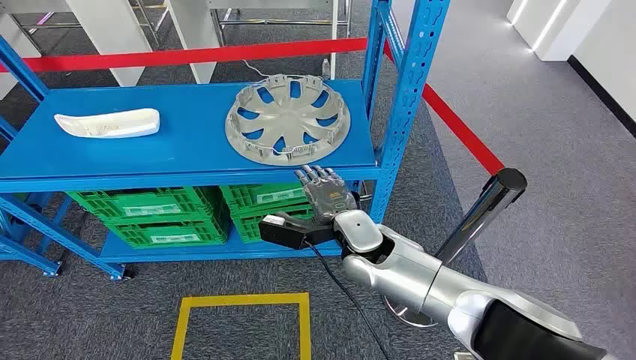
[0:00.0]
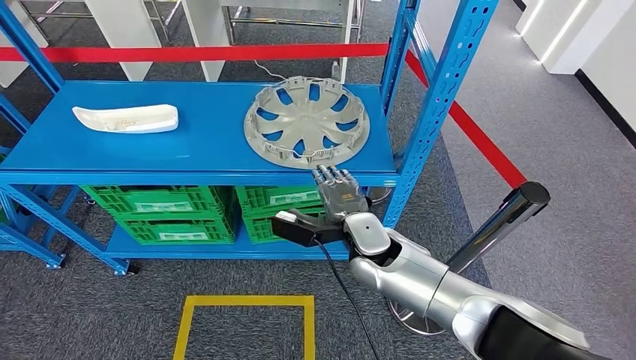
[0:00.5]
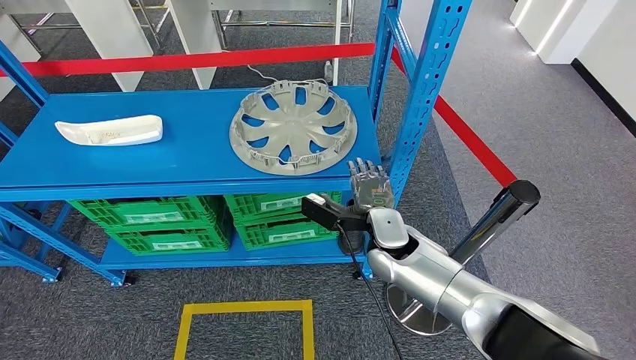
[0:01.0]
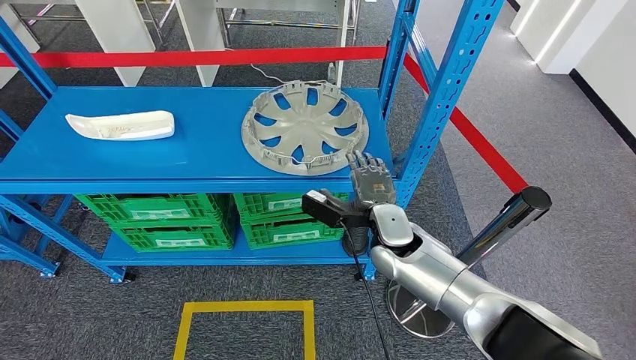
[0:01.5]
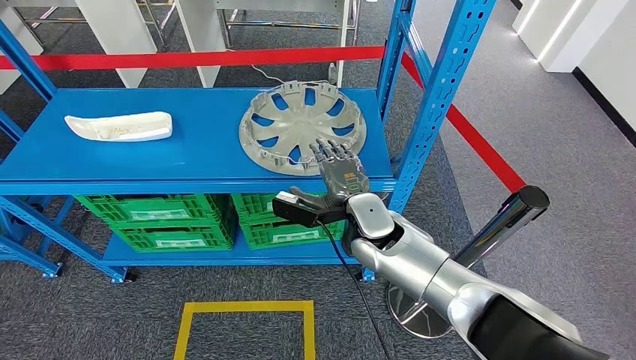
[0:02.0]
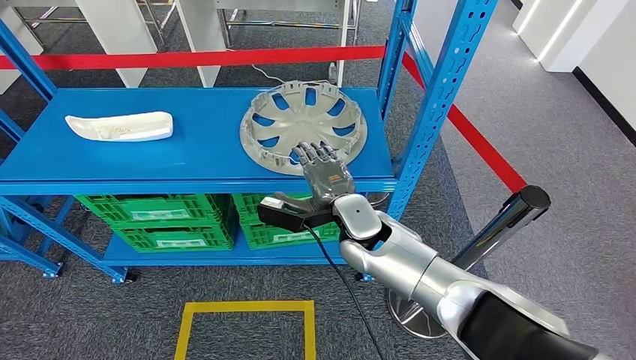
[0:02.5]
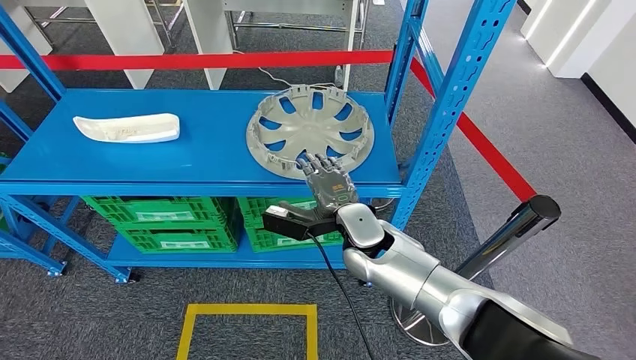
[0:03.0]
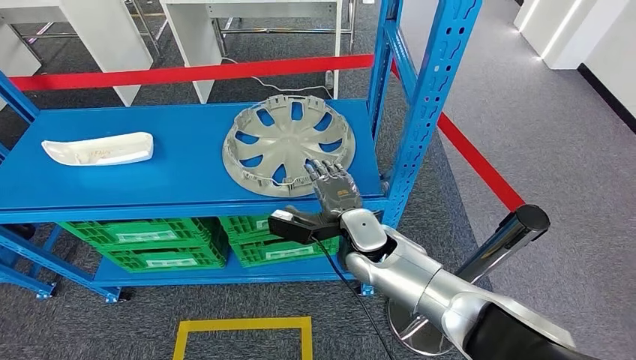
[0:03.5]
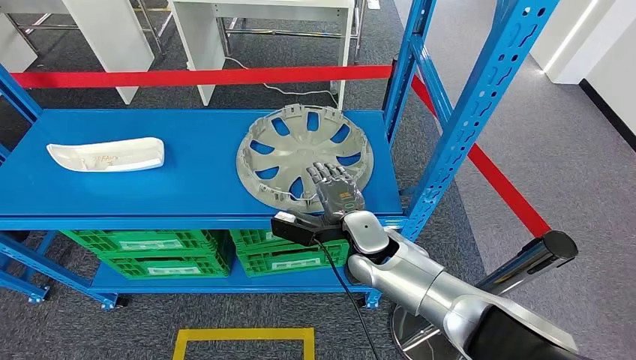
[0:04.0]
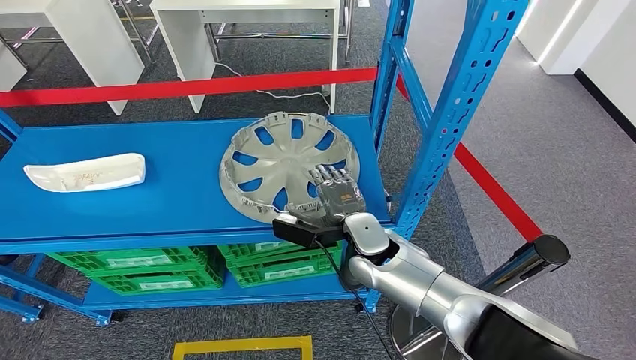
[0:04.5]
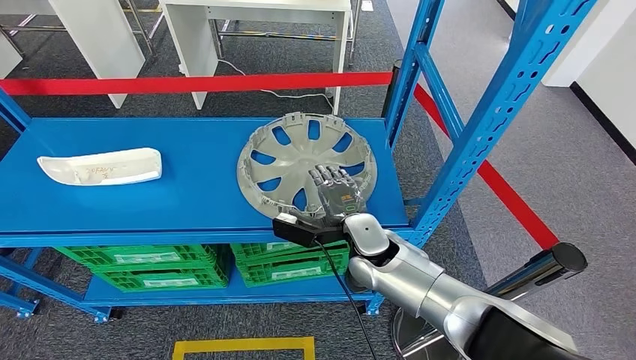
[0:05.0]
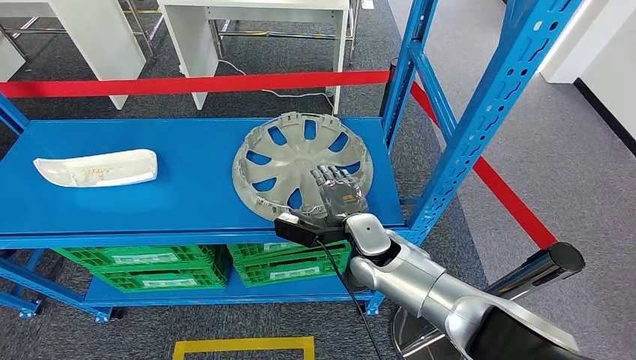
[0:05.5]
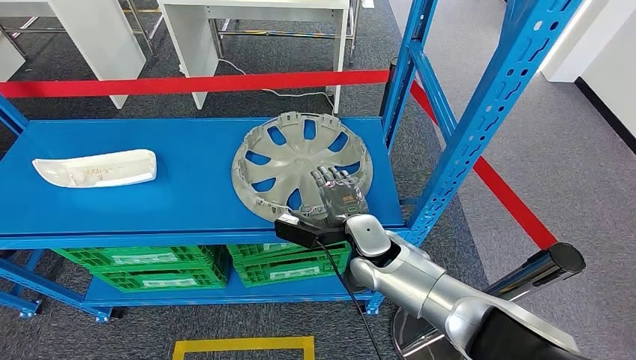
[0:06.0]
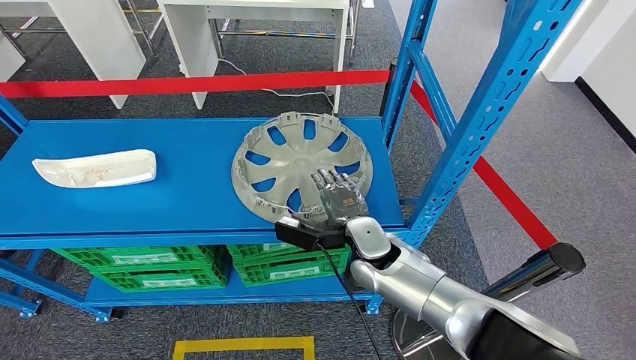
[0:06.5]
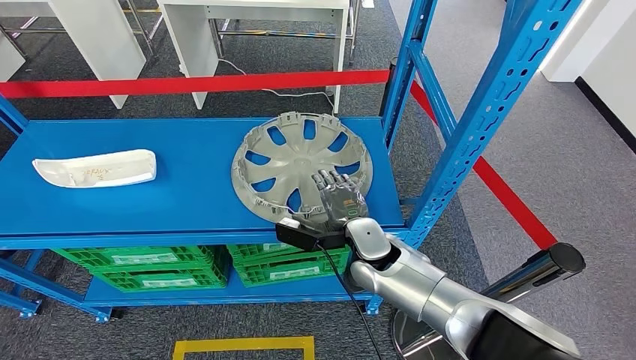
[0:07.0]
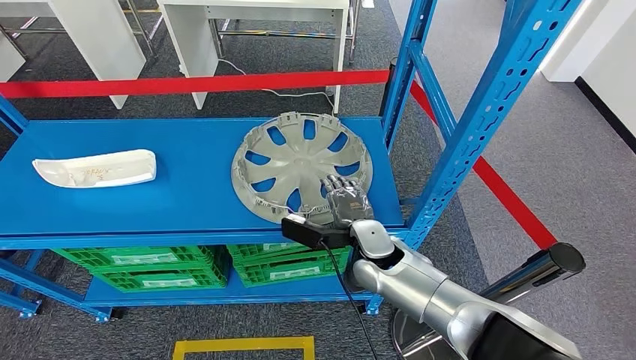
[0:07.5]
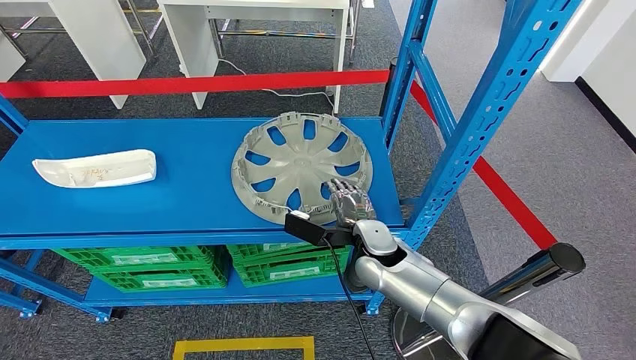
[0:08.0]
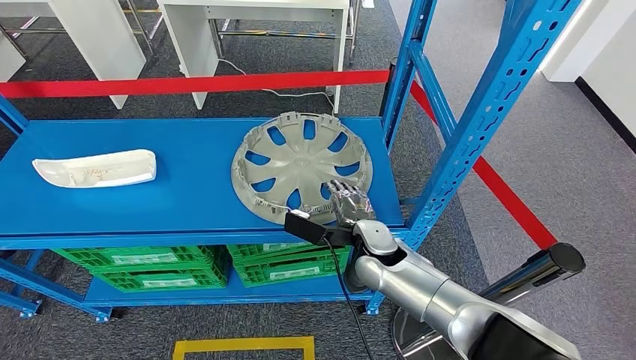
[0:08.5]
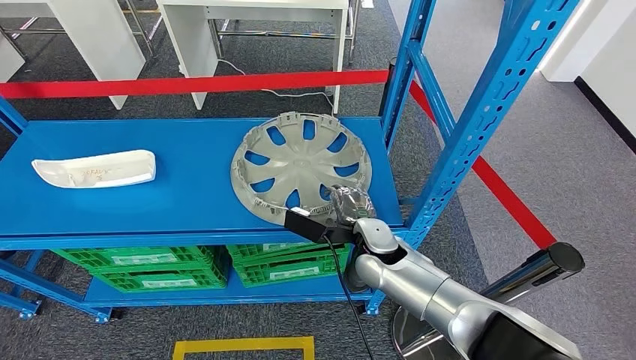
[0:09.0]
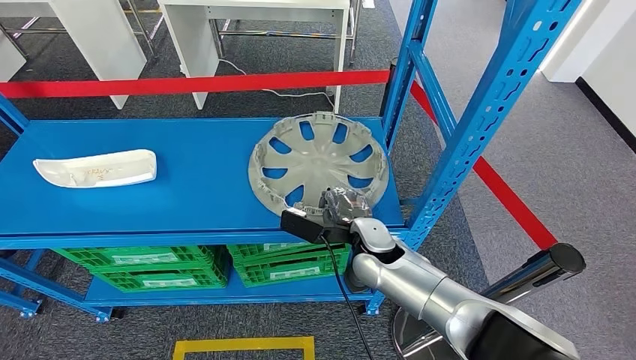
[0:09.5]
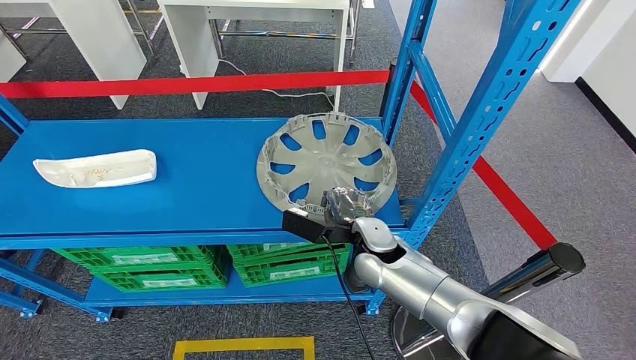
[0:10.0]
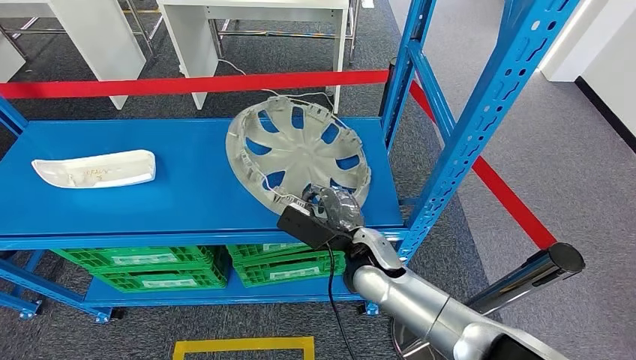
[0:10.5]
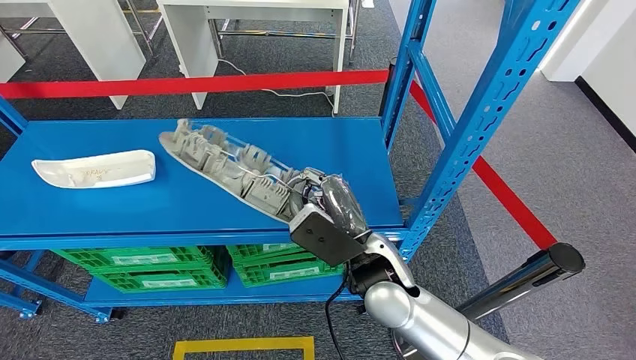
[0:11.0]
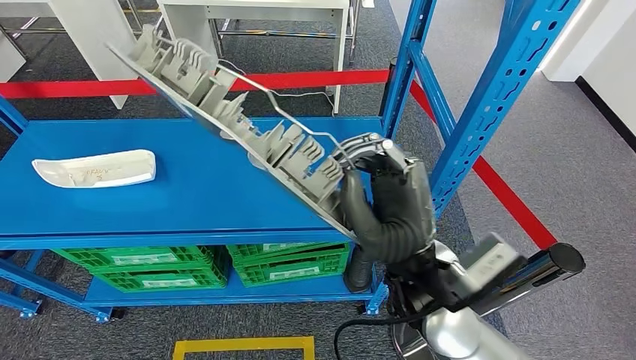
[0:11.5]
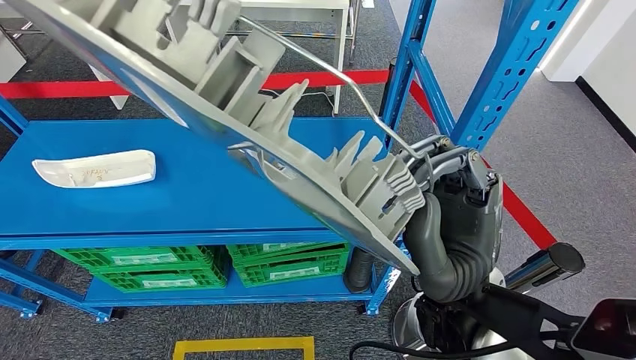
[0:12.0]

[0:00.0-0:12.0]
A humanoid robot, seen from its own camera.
Step, 0:00.0 to 0:11.5: Pick up the large material from the shelf.
0:06.0 to 0:08.0: The hands stay close to where they were, moving slightly.
0:08.0 to 0:10.0: Neither hand changes place.

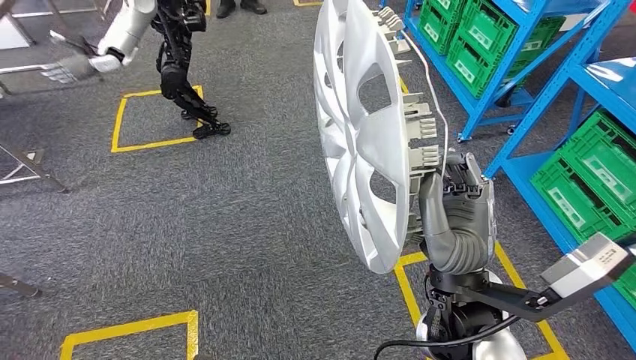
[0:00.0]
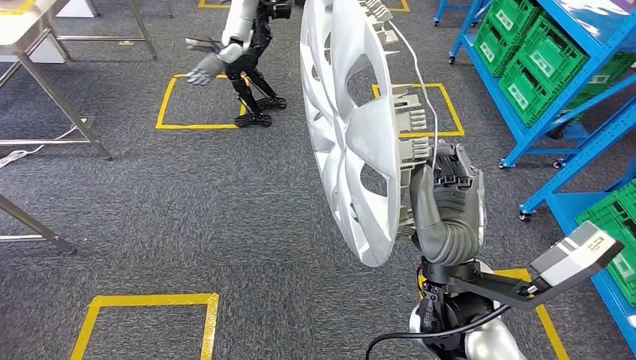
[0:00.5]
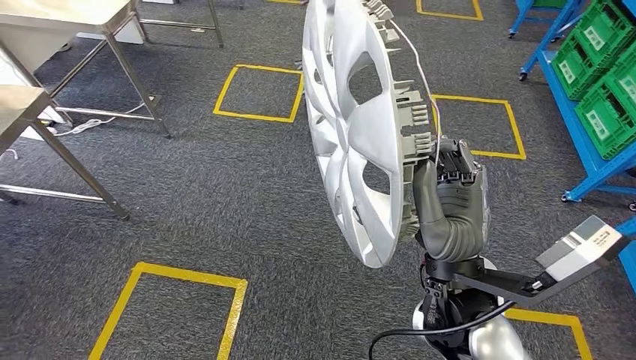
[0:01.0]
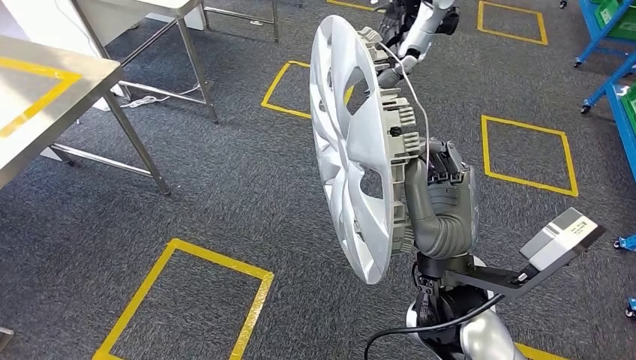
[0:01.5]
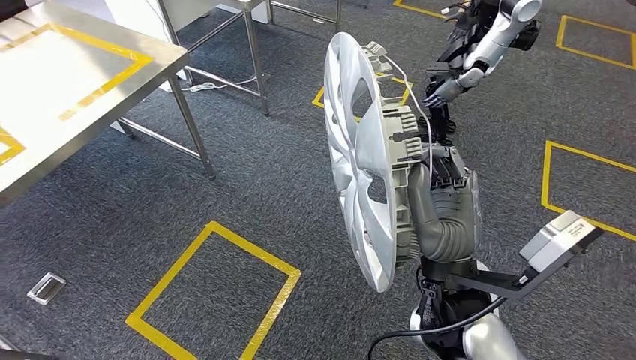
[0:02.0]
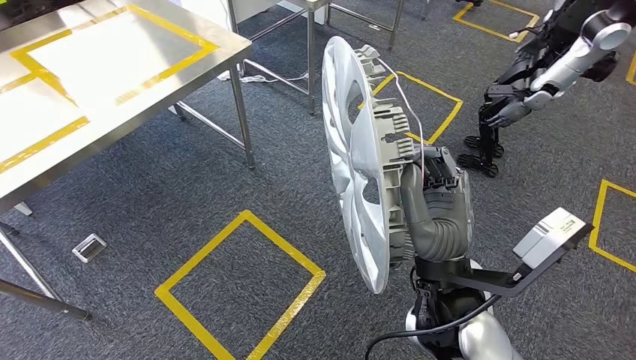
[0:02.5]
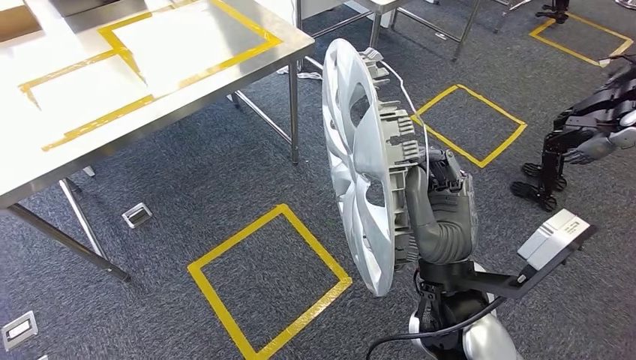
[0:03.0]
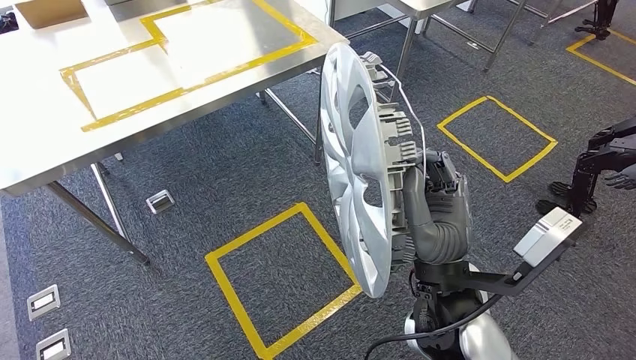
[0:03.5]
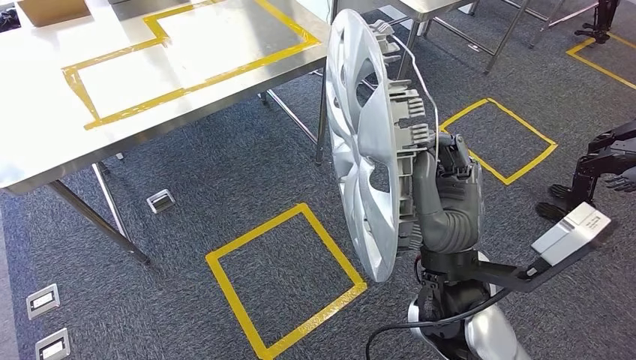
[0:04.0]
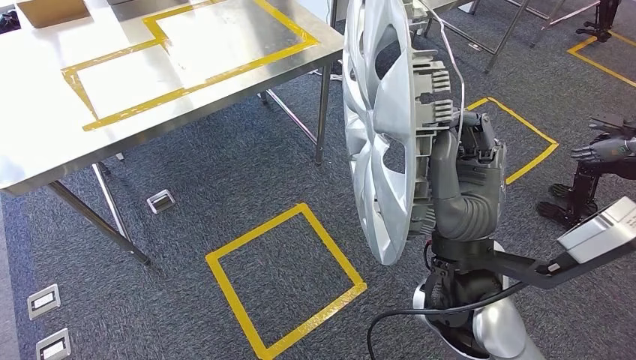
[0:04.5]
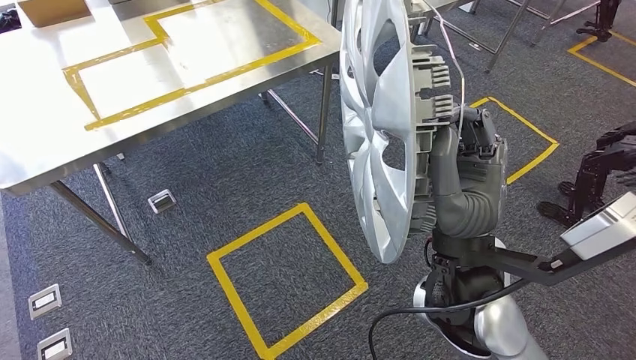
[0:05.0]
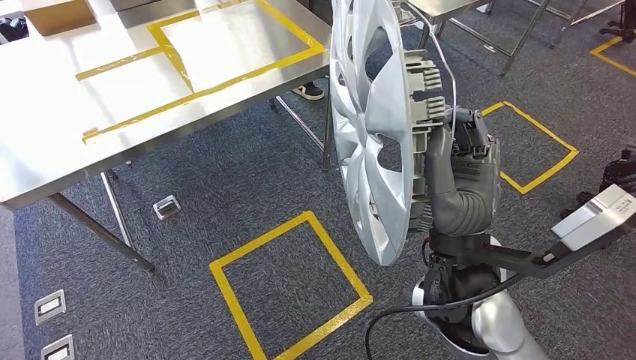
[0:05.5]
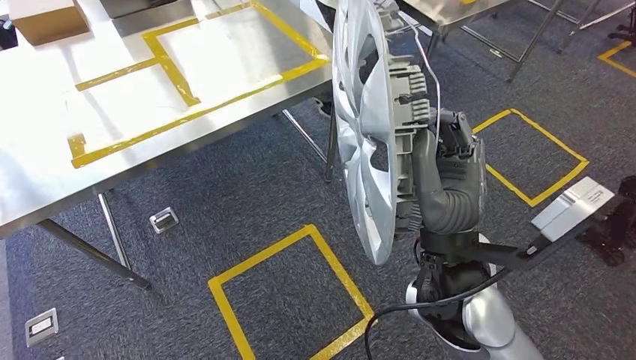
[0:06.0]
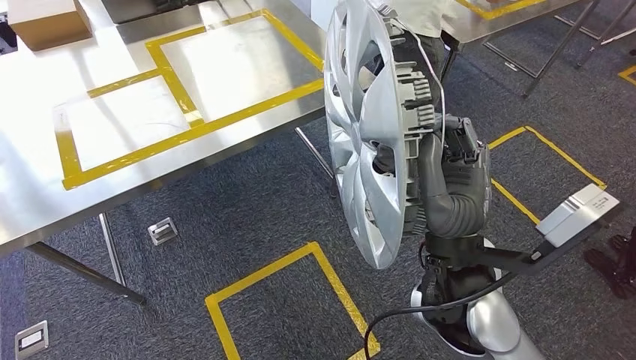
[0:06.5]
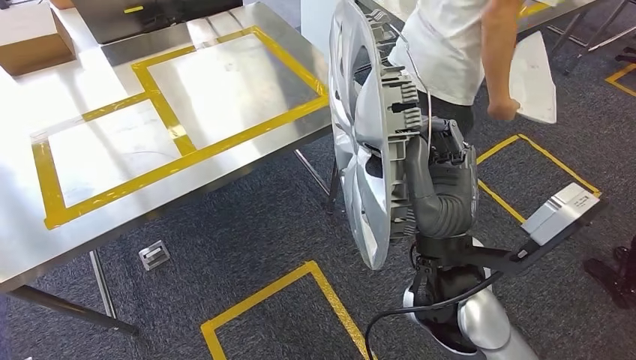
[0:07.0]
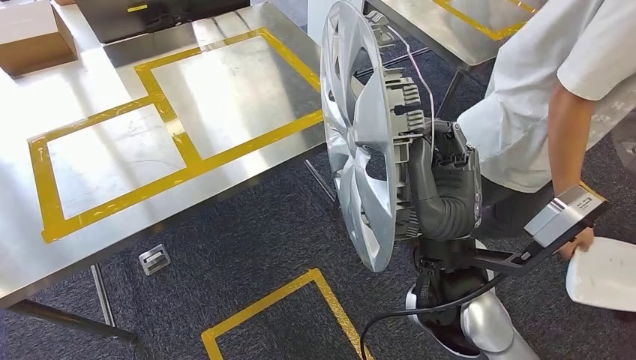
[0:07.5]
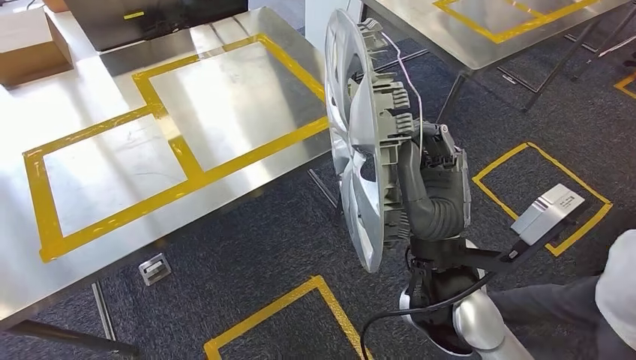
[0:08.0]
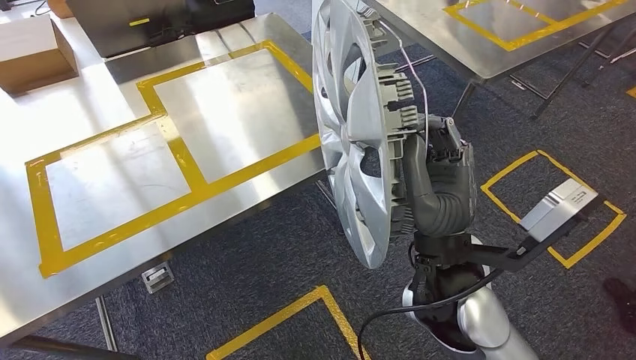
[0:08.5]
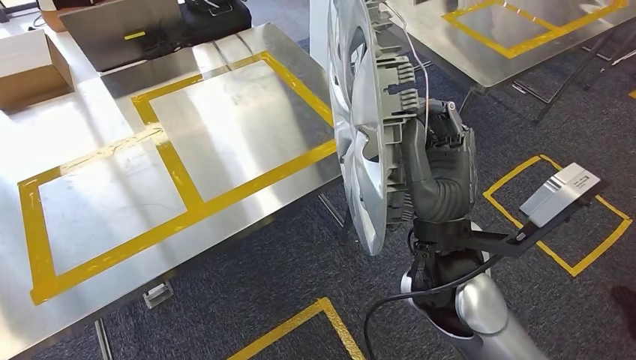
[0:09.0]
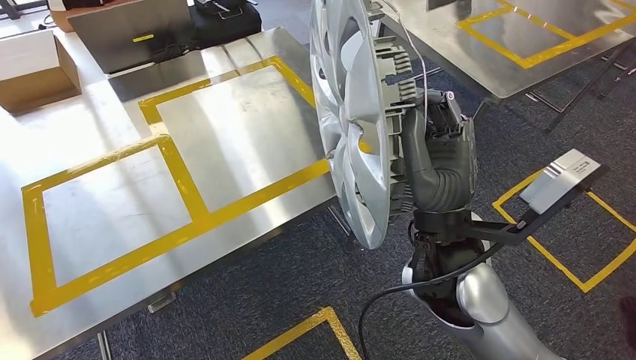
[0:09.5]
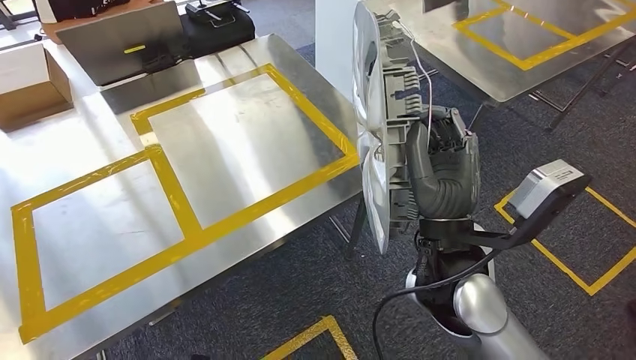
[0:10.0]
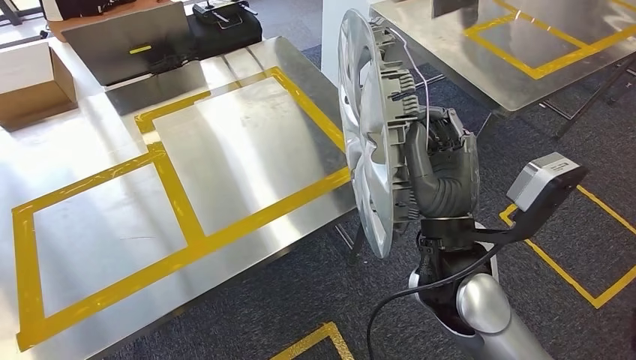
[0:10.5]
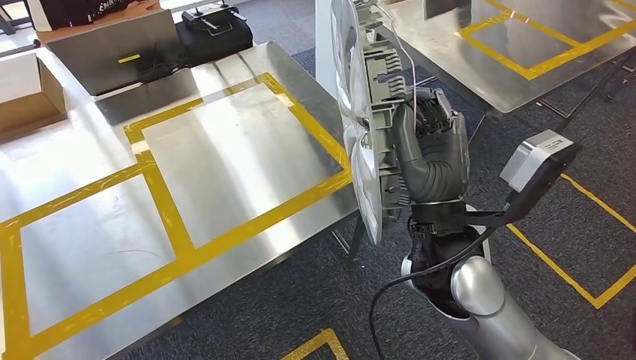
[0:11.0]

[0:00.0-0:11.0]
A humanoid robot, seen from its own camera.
Step, 0:00.0 to 0:06.5: Move the large material to the workbench.
